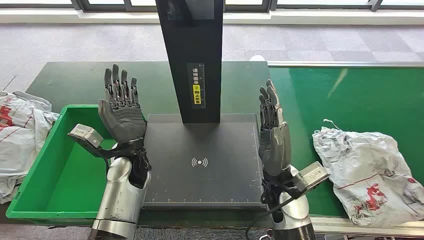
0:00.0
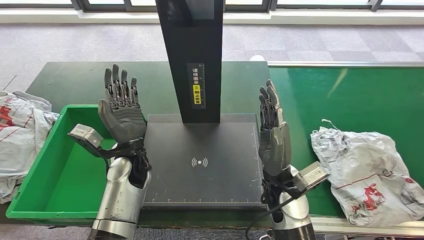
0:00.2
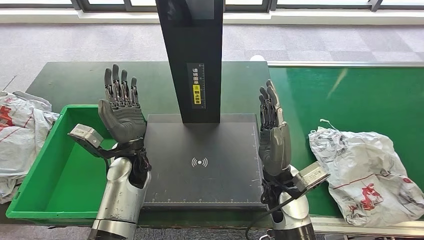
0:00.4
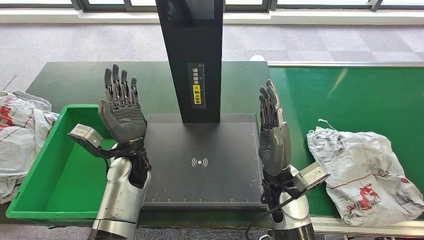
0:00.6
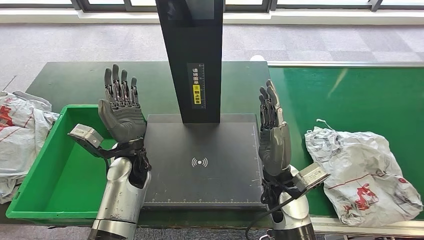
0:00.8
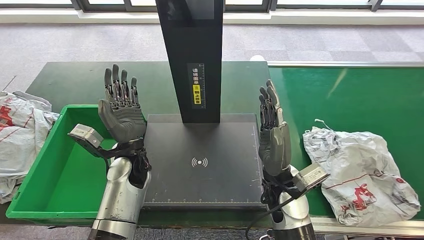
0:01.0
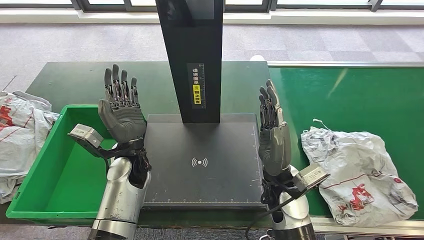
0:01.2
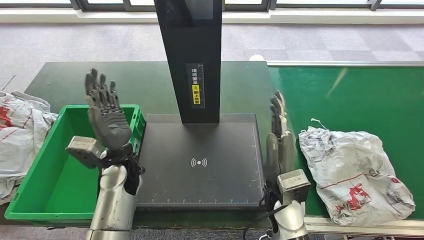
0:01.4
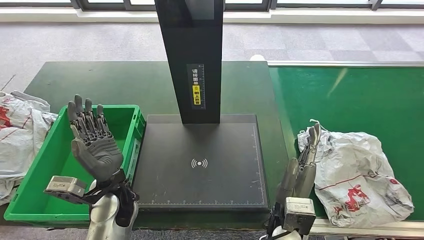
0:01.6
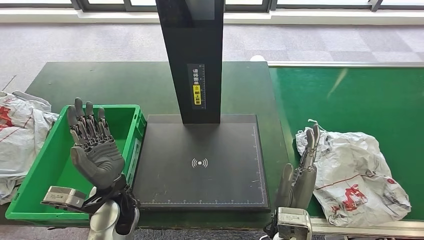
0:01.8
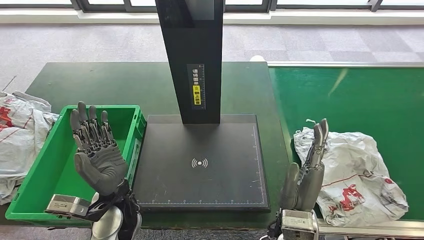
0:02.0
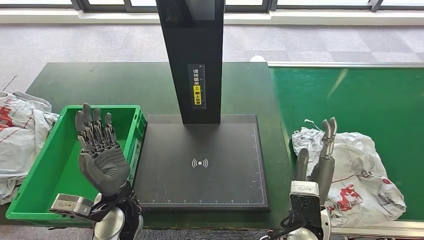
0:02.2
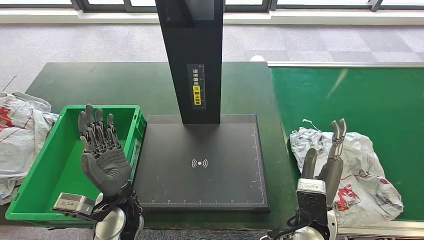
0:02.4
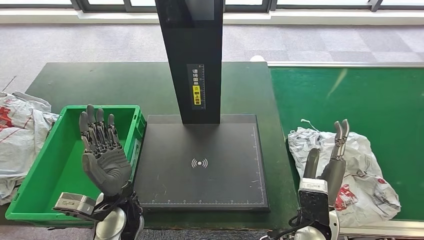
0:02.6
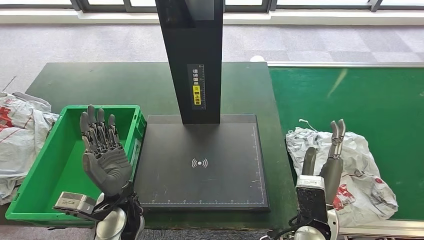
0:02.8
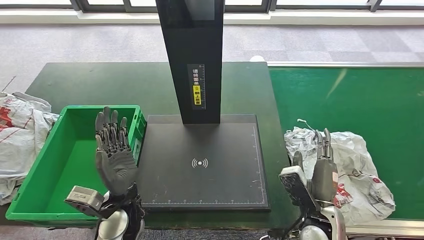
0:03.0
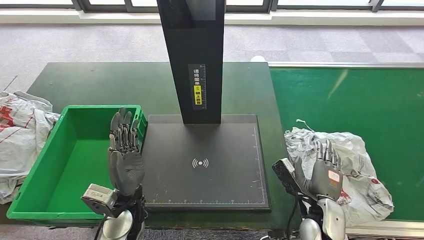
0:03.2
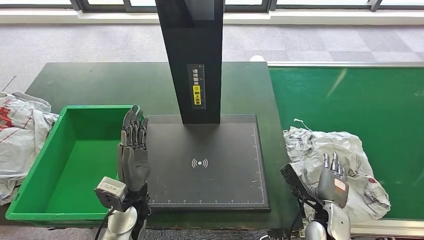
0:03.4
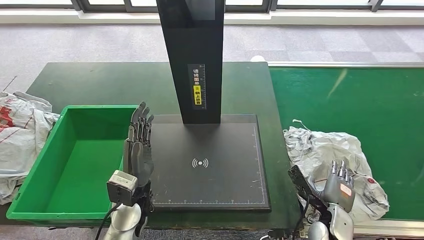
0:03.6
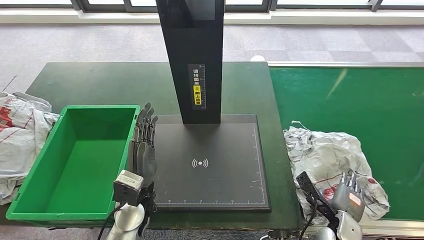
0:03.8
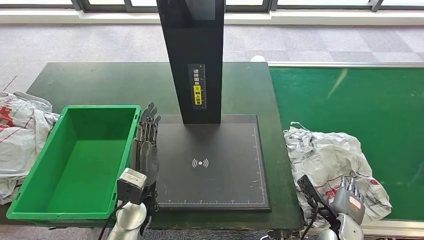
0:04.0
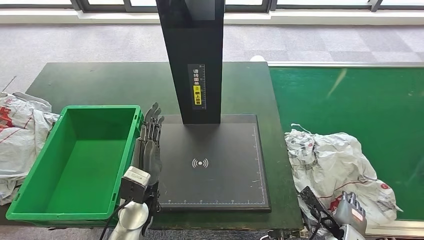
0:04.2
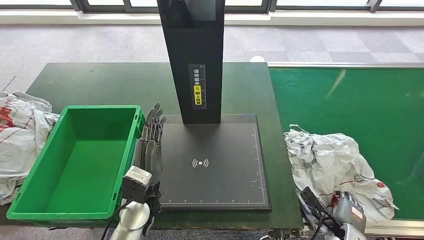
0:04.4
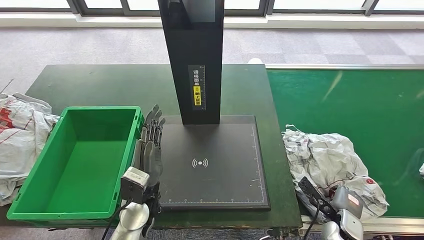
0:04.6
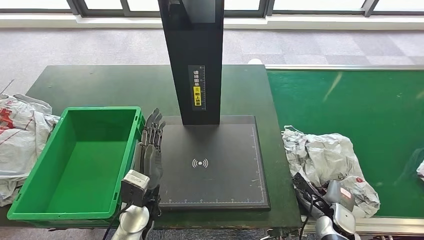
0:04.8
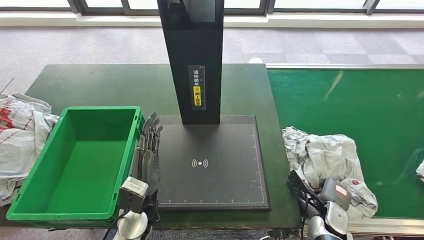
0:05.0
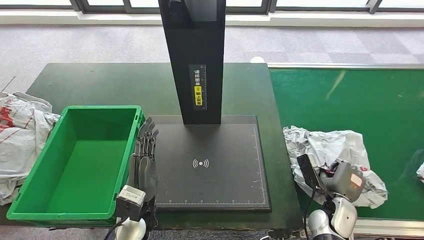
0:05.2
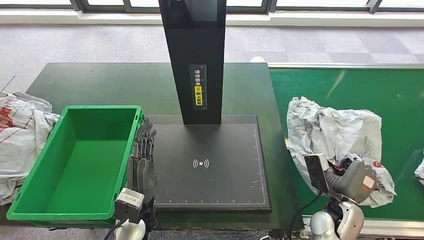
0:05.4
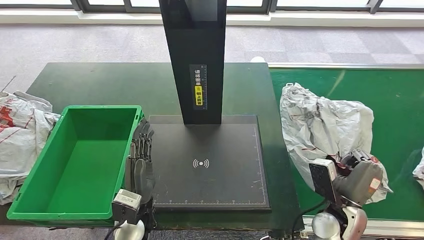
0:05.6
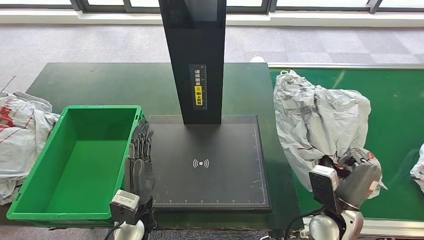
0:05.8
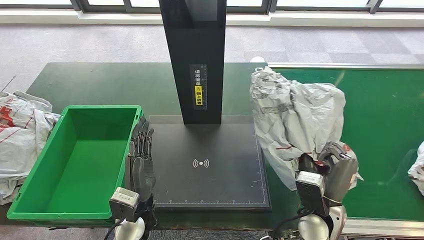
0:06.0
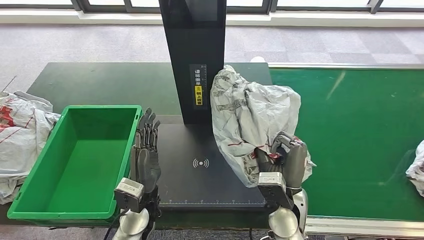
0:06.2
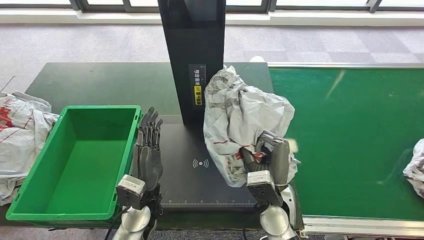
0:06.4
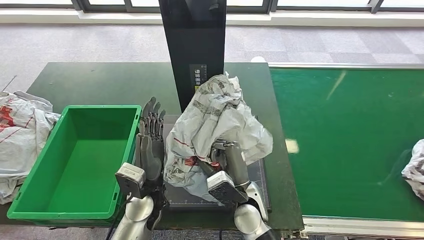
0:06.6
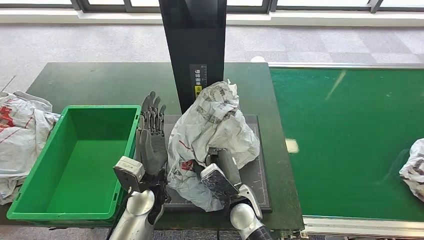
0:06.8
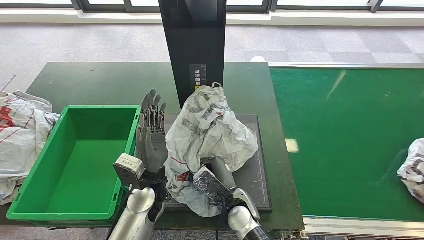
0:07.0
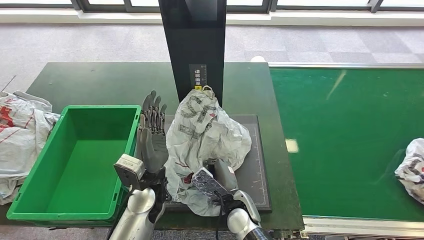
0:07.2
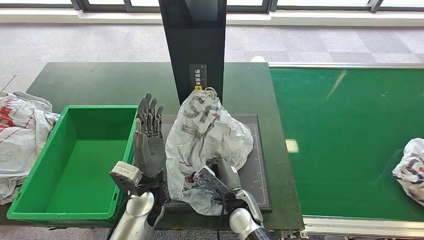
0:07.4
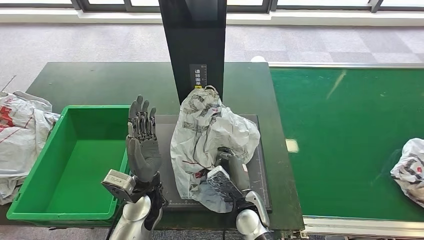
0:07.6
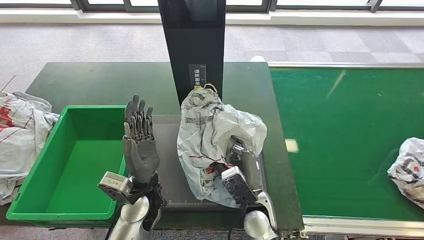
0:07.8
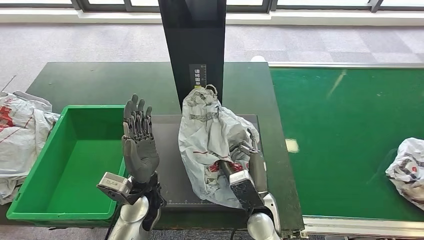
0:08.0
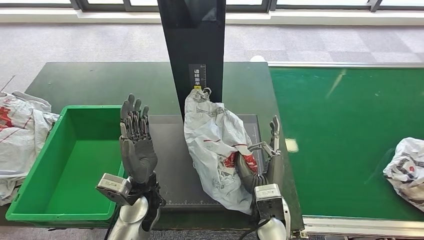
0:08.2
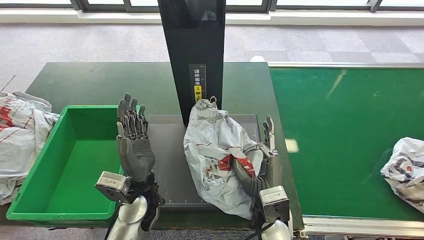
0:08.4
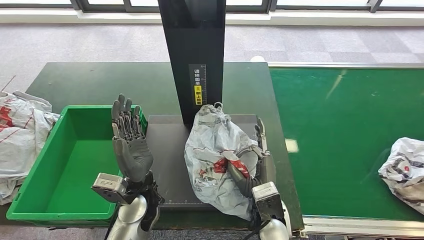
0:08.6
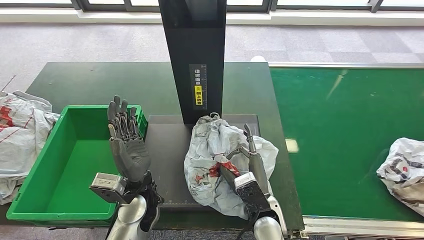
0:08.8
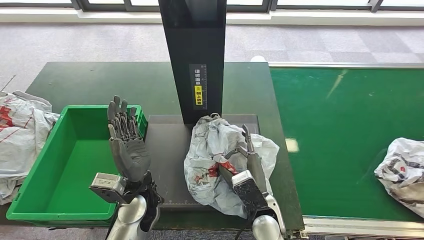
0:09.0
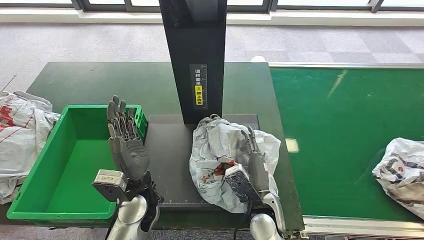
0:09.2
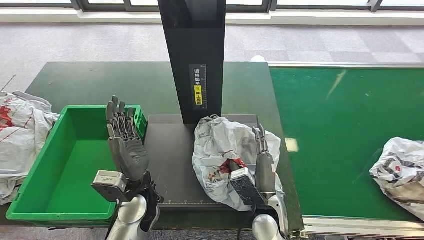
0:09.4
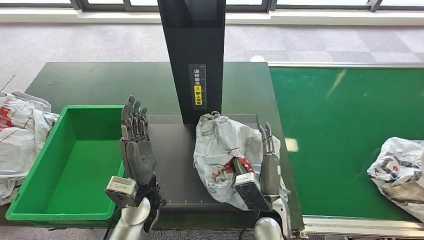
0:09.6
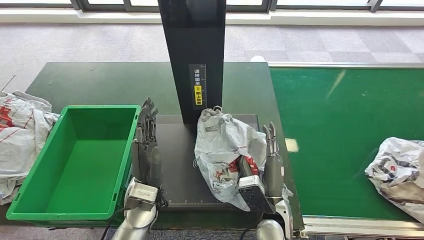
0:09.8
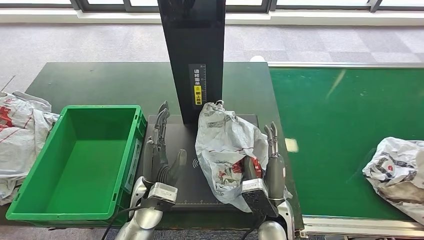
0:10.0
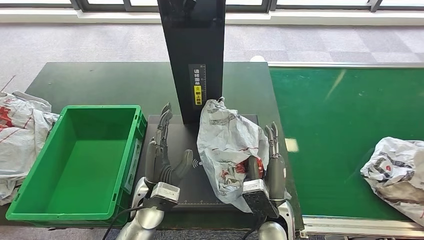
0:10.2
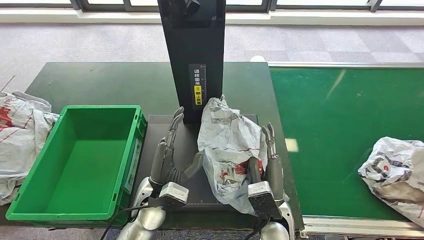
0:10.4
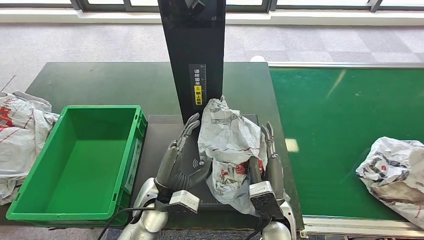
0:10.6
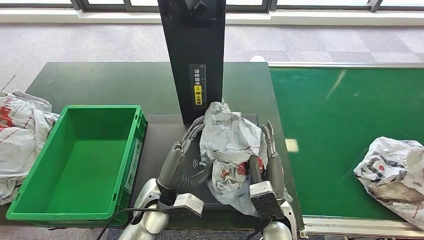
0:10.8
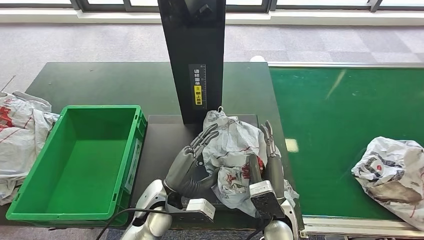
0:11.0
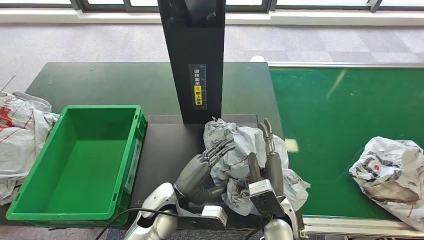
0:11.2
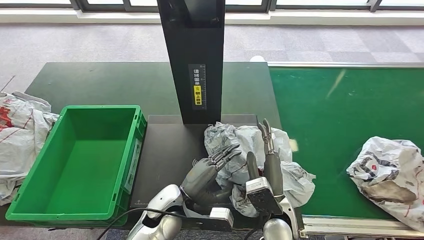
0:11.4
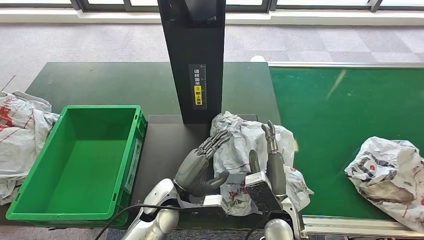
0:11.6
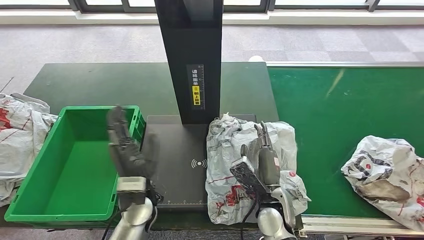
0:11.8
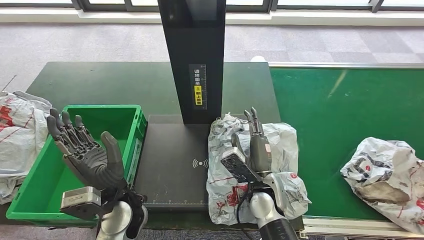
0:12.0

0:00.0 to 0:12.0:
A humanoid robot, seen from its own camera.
Step, 0:00.0 to 0:05.4: Take the parcel off the conveyor belt.
0:03.0 to 0:04.4: The right hand heads downward and to the right, covering about 15 cm.

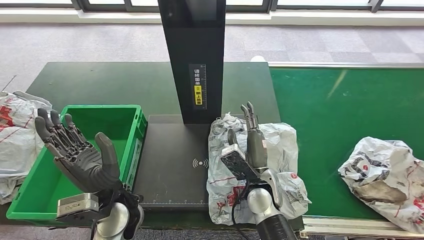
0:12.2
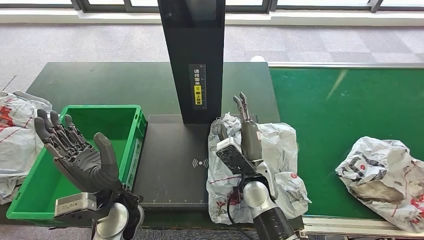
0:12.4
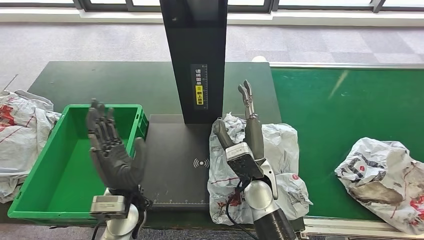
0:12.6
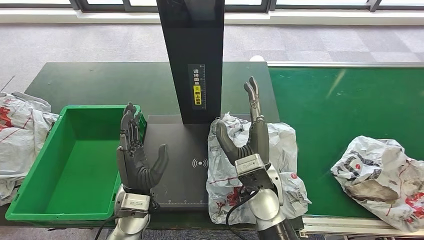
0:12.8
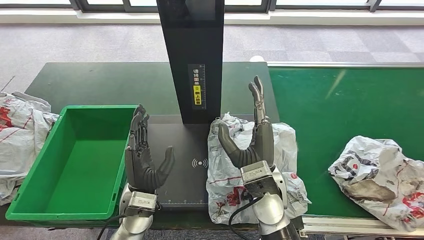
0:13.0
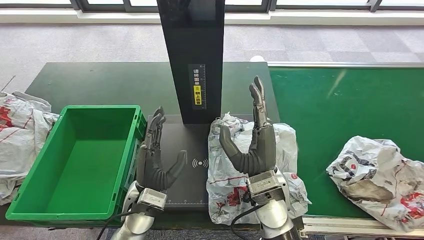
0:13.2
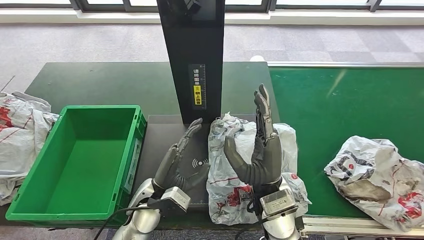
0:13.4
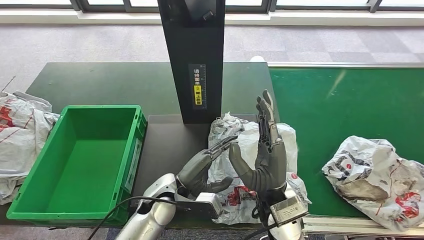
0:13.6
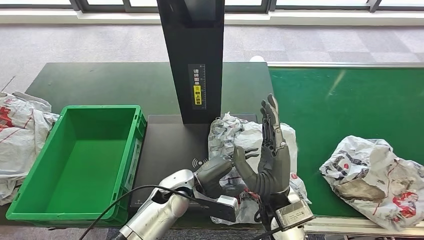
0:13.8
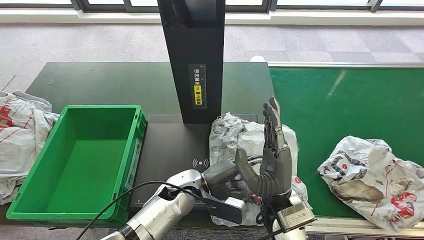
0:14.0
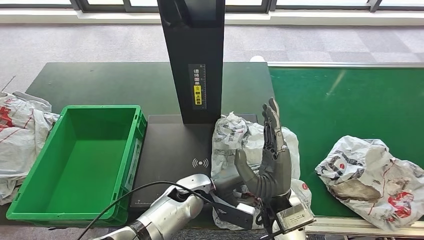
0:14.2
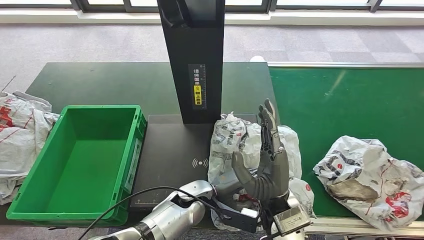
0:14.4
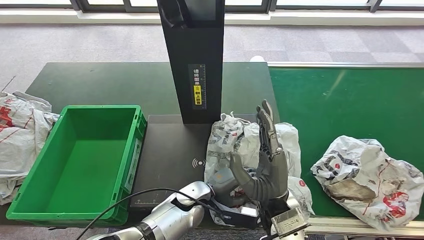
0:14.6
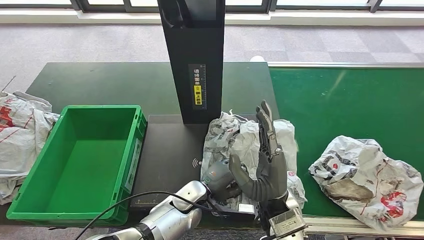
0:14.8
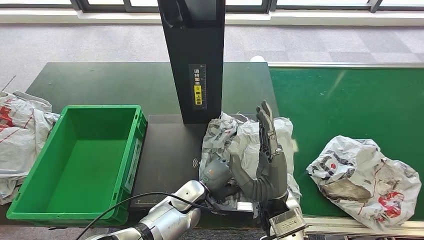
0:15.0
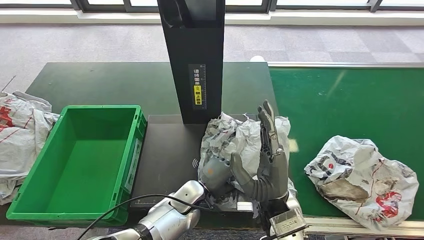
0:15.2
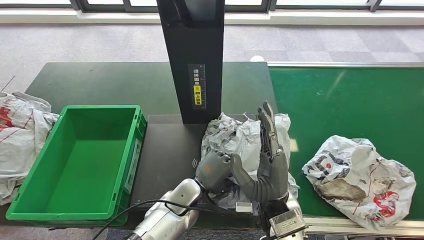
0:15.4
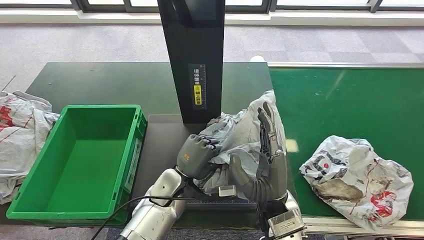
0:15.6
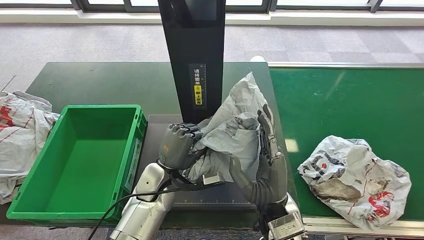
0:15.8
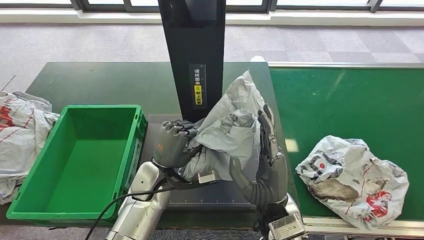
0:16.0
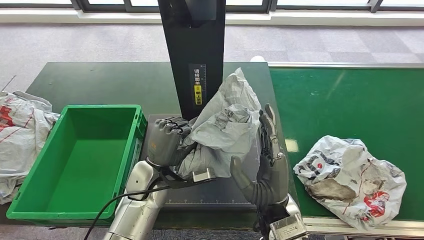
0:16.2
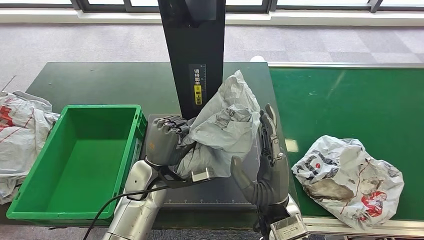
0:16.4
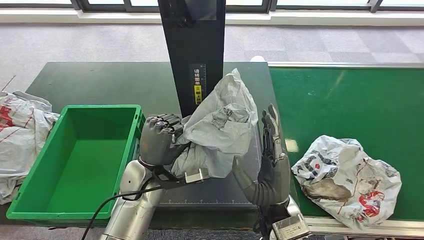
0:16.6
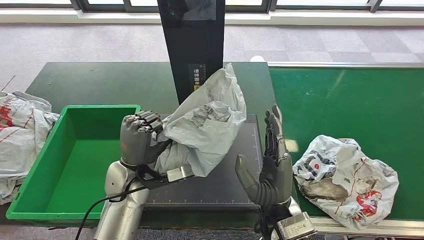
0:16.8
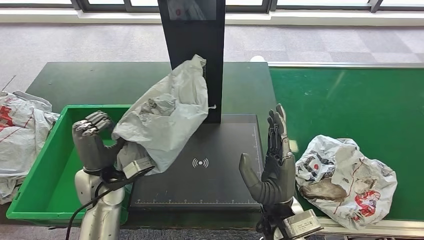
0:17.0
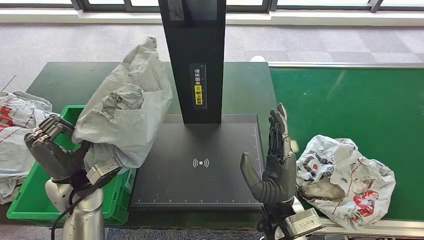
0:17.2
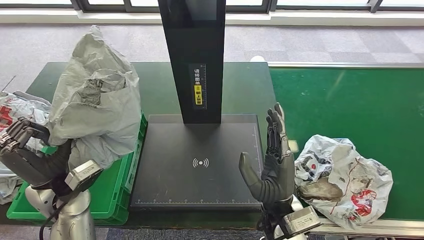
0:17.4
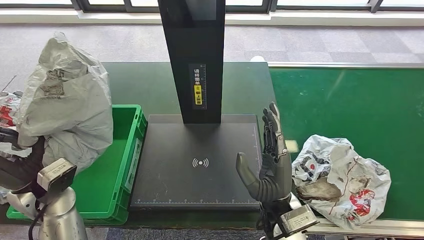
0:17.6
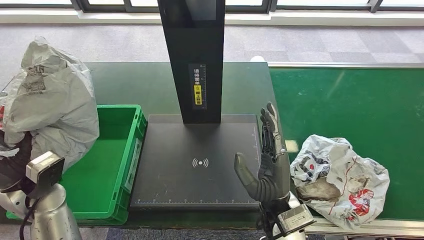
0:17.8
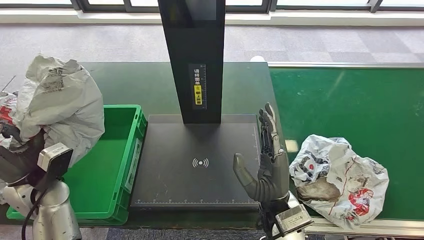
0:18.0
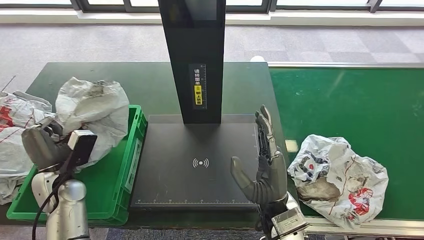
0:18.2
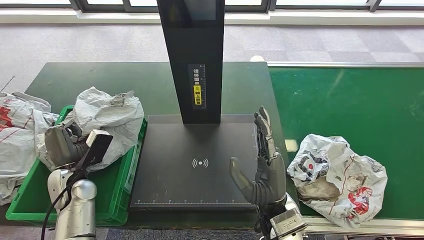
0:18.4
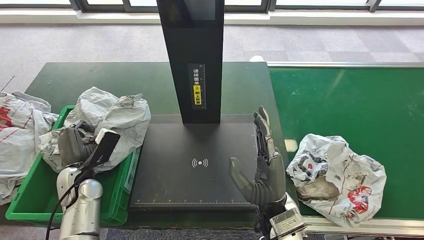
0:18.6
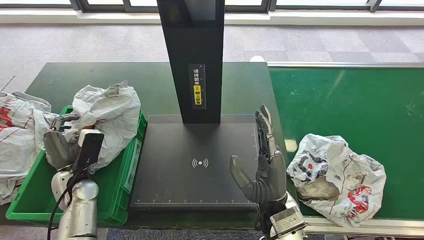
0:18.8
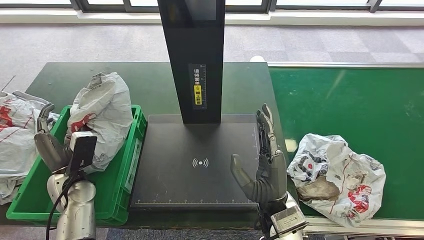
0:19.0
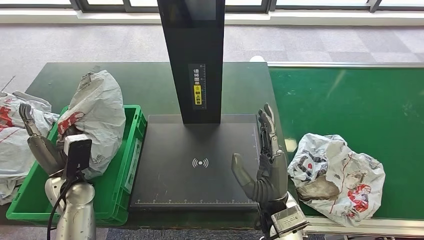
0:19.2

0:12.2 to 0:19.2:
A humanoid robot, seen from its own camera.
Step, 0:12.4 to 0:16.2: Pick up the parcel from the inbound machine.
0:13.6 to 0:15.0: The left hand is displaced downward and to the right by some 10 cm.
